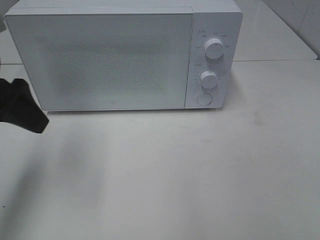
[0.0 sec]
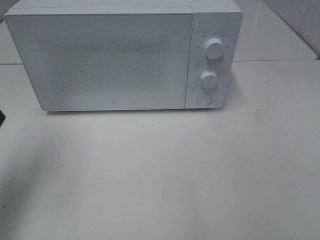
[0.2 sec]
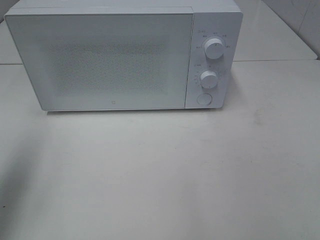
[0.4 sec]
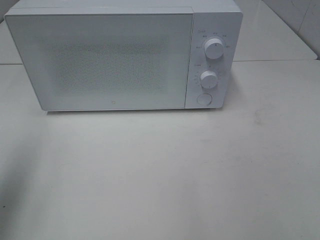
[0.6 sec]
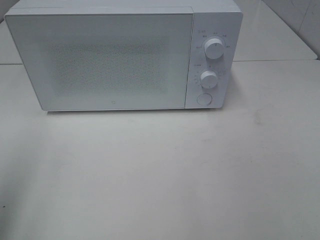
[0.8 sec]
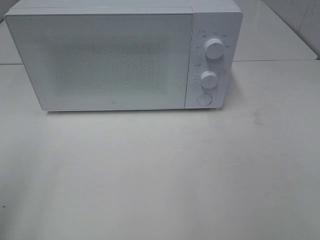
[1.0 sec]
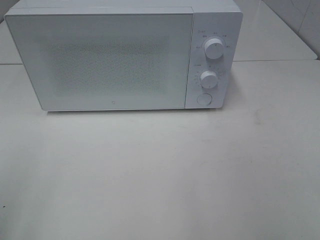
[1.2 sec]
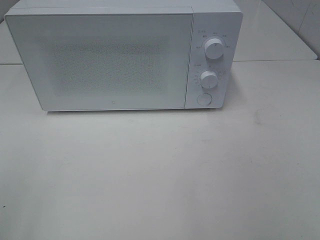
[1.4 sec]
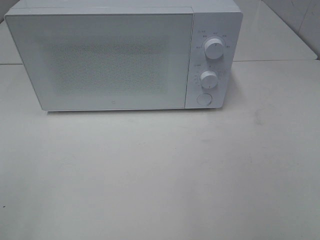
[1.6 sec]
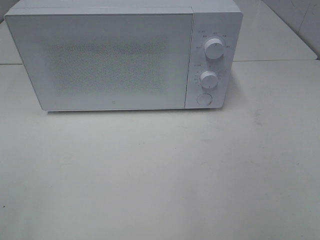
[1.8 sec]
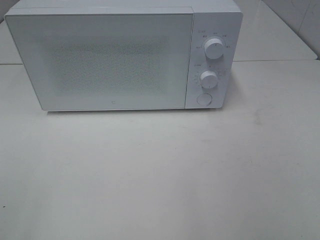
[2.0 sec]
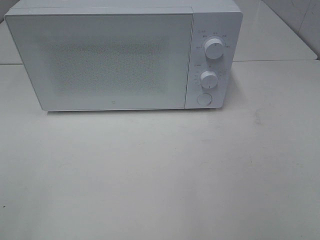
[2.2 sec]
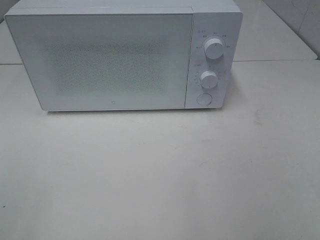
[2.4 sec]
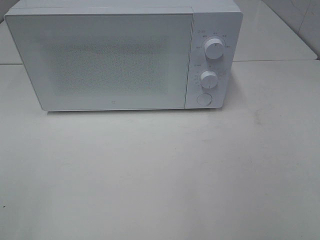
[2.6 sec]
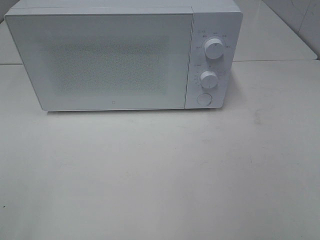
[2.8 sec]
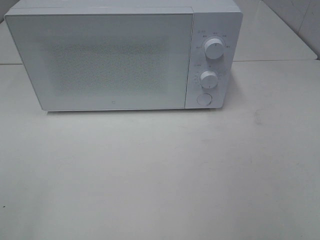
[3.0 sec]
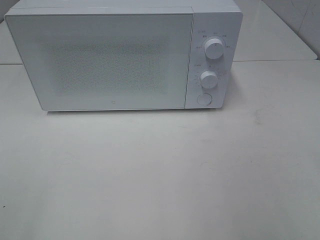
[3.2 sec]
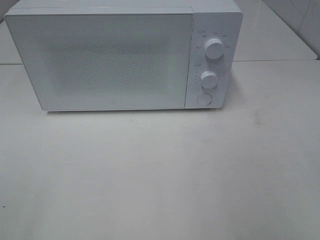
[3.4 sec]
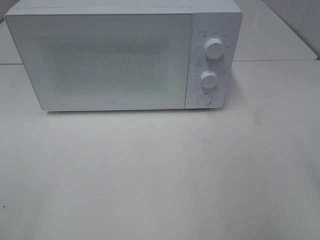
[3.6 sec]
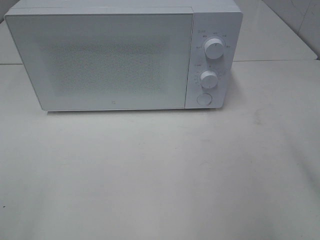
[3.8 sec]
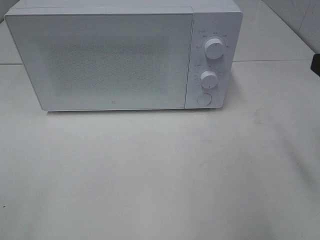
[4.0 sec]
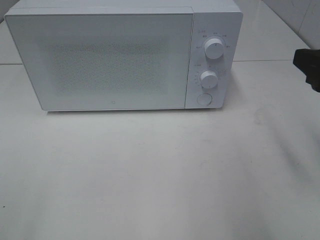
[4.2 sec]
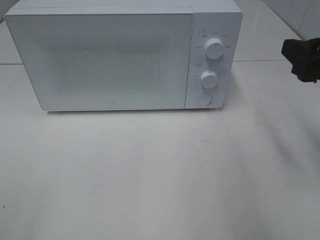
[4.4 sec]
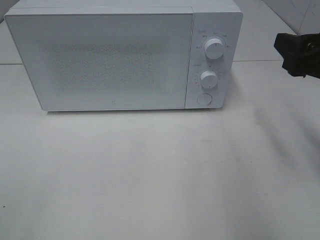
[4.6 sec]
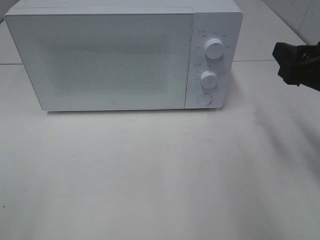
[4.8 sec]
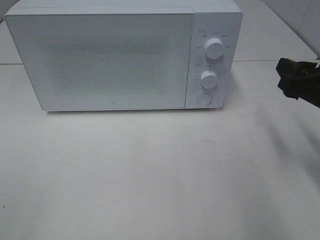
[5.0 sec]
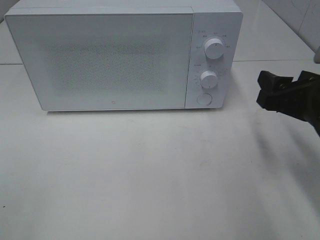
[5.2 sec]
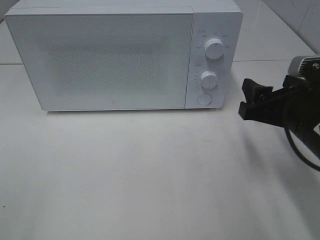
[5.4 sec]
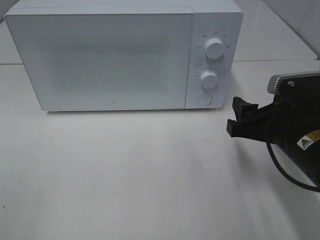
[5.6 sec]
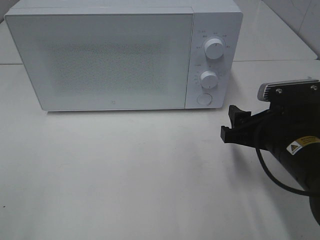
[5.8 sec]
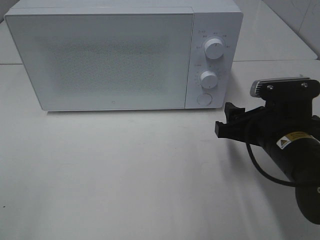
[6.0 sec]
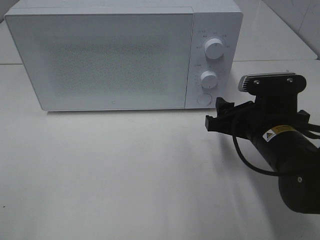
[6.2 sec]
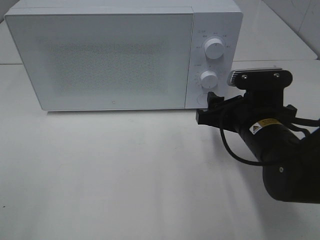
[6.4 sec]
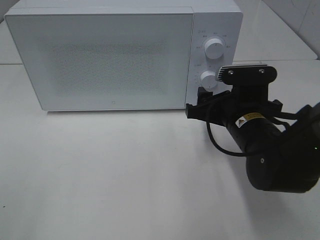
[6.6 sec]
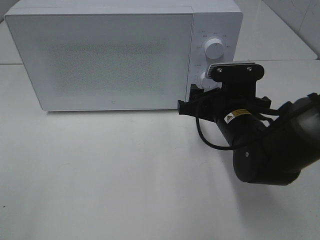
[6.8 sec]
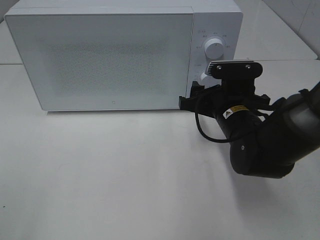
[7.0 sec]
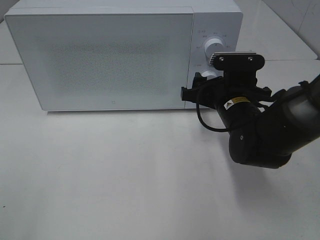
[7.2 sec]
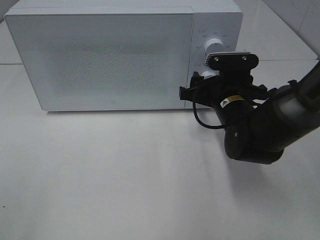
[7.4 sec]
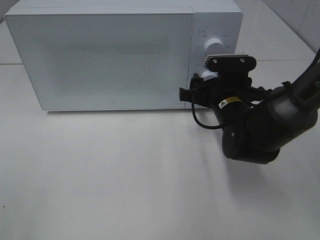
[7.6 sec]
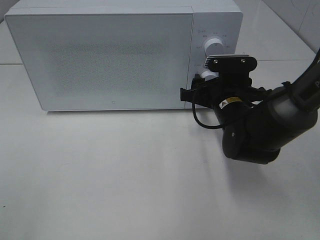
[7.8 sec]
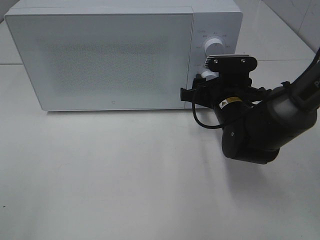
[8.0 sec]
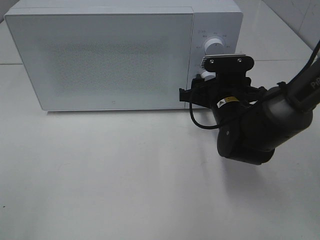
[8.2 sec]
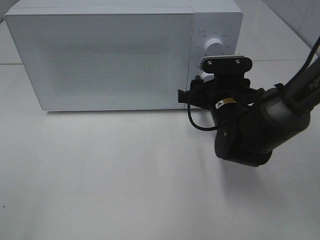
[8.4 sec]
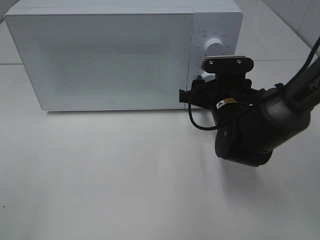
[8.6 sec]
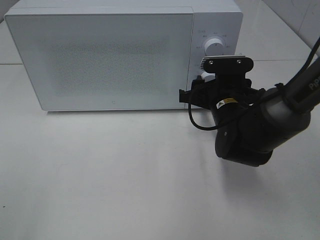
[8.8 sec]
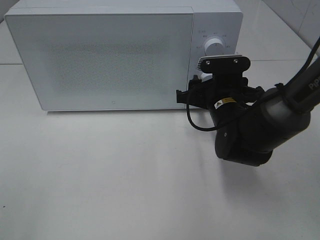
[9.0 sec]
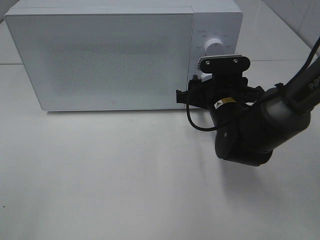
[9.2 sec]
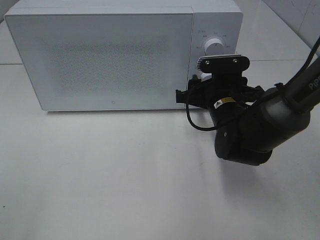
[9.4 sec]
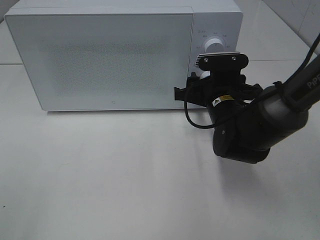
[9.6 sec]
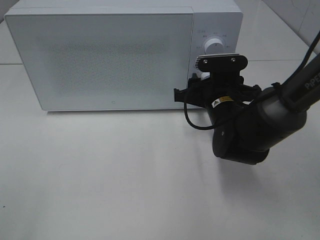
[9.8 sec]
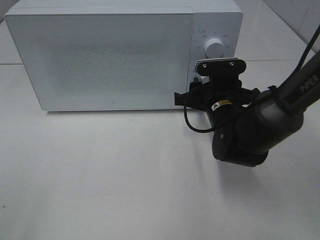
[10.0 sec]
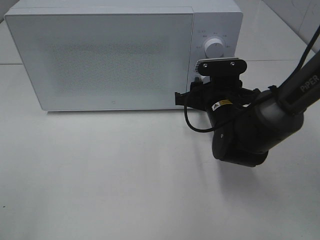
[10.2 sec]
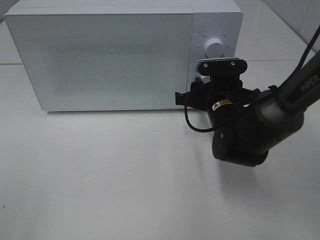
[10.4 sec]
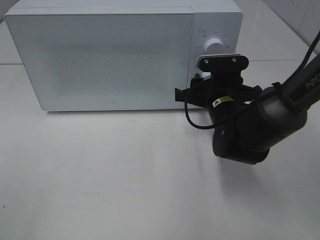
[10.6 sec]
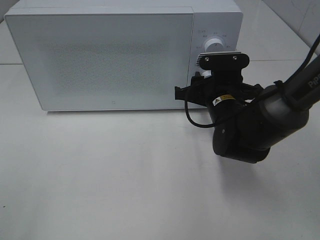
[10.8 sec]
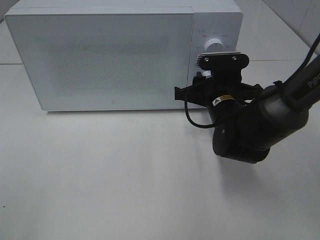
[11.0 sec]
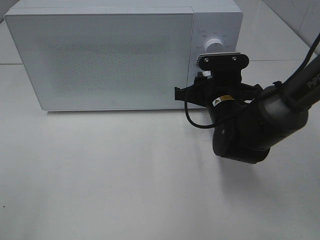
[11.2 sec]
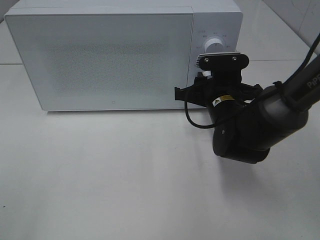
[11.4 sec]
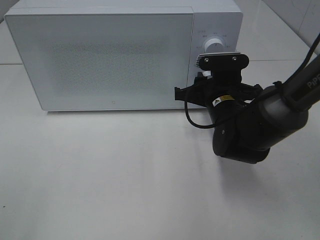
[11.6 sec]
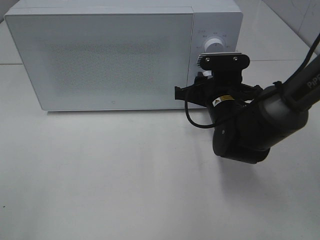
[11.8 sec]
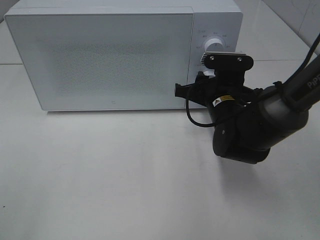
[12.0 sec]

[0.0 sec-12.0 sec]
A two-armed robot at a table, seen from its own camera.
Task of the whole recording: Heat the burger.
0.0 sec to 1.6 sec: The left gripper travels backward by roughly 25 cm.
3.0 sec to 4.4 sec: The right gripper heads forward, covering about 20 cm.
4.4 sec to 6.0 sec: The right gripper moves downward and to the left, some 15 cm.
6.0 sec to 7.6 sec: The right gripper goes about 10 cm forward.
7.6 sec to 10.4 sec: The two grippers keep their place.
10.4 sec to 12.0 sec: The grippers make only small movements.

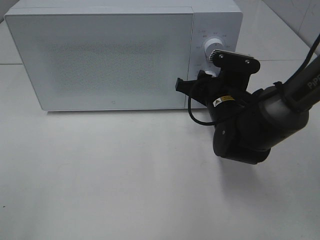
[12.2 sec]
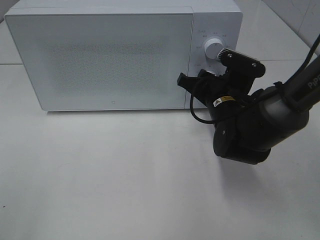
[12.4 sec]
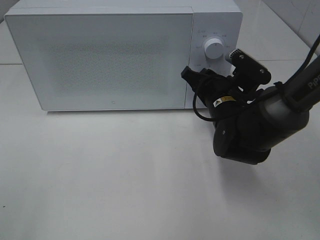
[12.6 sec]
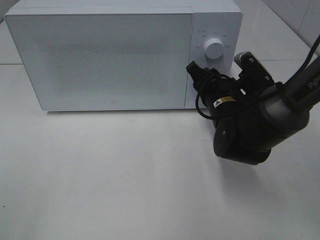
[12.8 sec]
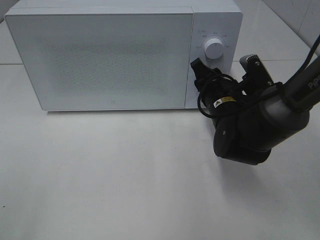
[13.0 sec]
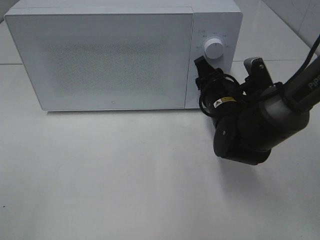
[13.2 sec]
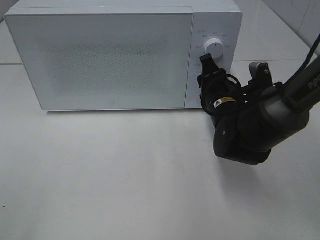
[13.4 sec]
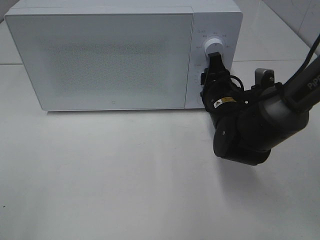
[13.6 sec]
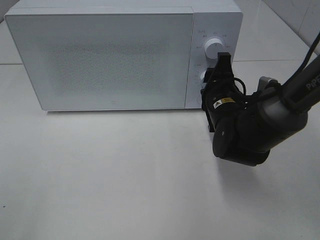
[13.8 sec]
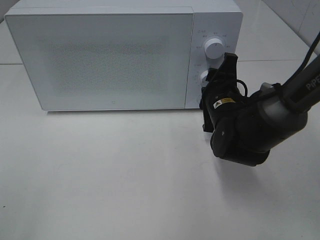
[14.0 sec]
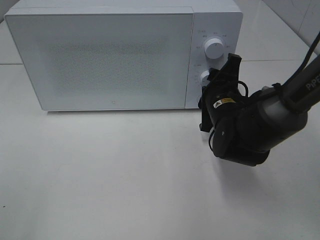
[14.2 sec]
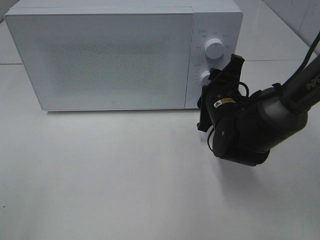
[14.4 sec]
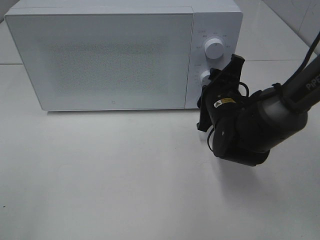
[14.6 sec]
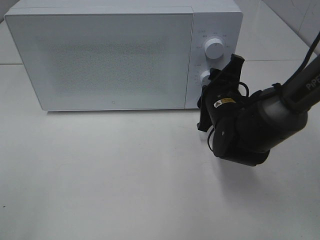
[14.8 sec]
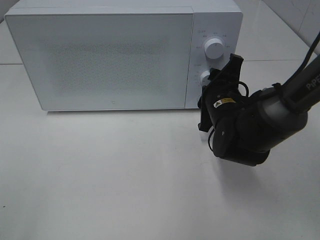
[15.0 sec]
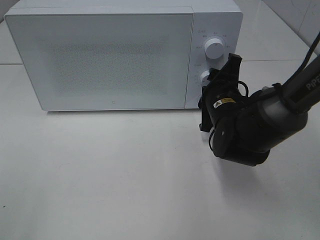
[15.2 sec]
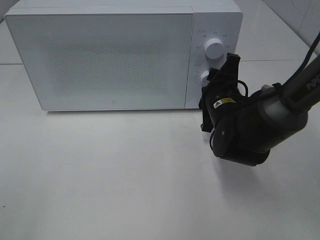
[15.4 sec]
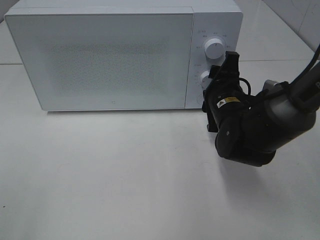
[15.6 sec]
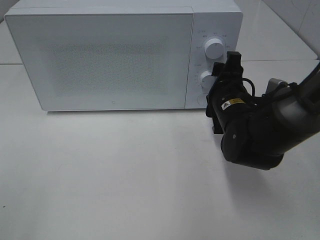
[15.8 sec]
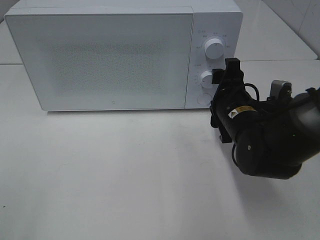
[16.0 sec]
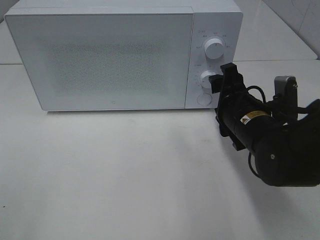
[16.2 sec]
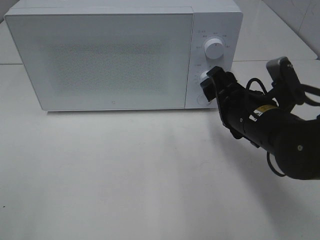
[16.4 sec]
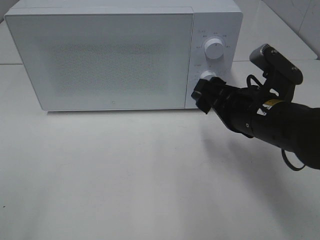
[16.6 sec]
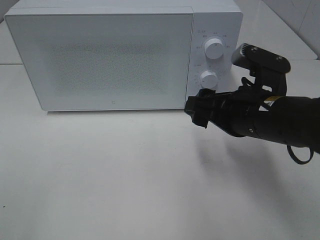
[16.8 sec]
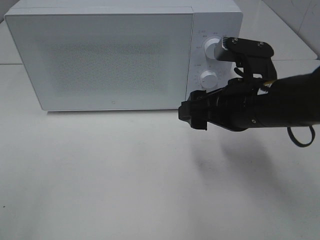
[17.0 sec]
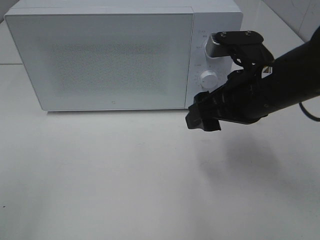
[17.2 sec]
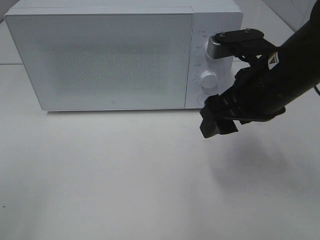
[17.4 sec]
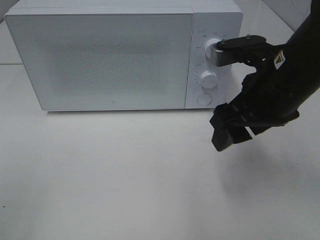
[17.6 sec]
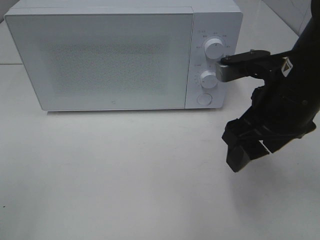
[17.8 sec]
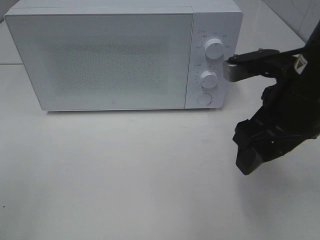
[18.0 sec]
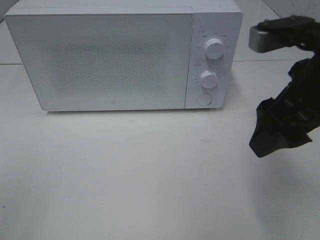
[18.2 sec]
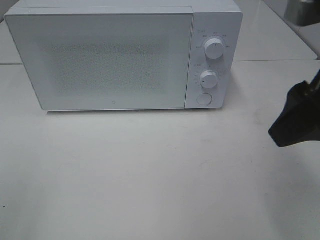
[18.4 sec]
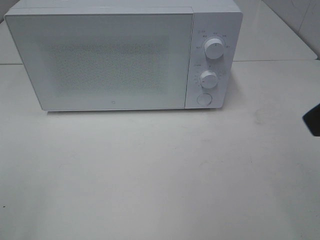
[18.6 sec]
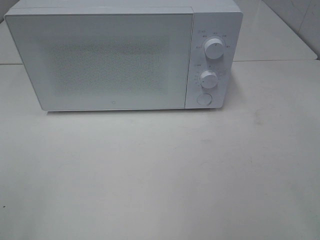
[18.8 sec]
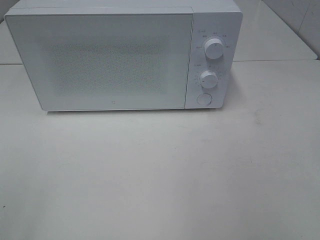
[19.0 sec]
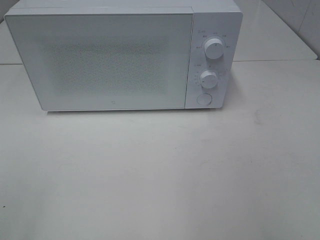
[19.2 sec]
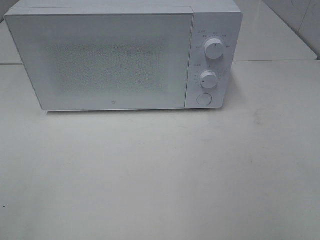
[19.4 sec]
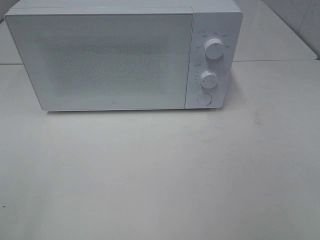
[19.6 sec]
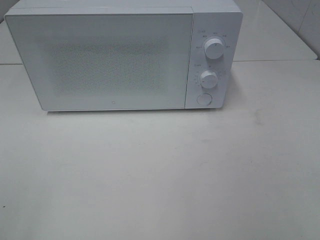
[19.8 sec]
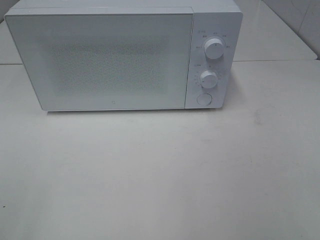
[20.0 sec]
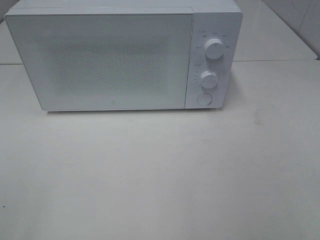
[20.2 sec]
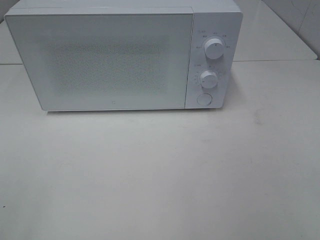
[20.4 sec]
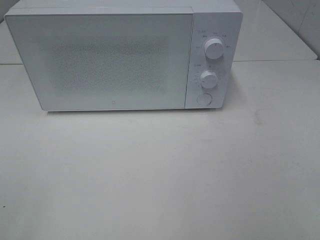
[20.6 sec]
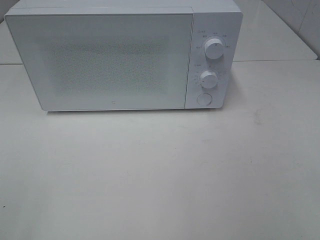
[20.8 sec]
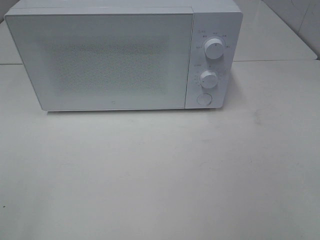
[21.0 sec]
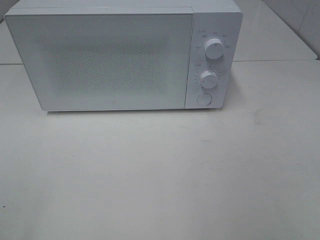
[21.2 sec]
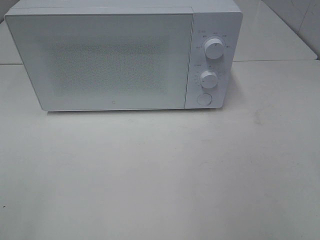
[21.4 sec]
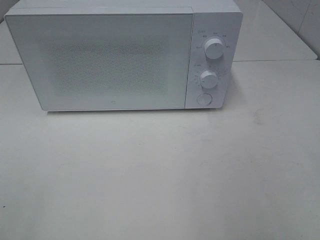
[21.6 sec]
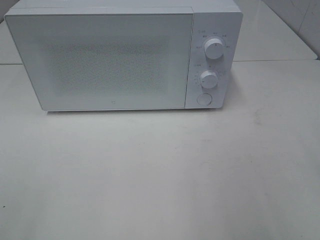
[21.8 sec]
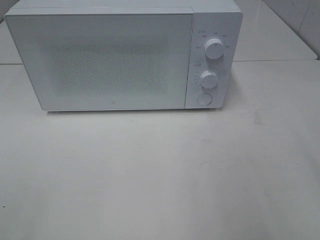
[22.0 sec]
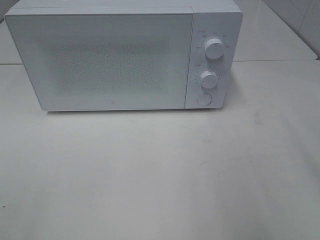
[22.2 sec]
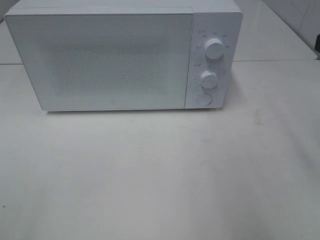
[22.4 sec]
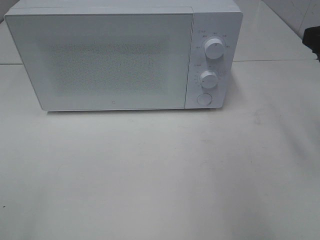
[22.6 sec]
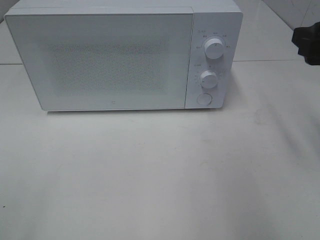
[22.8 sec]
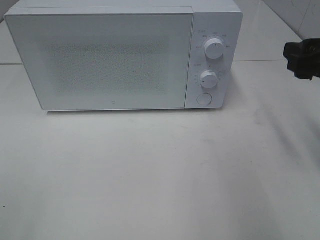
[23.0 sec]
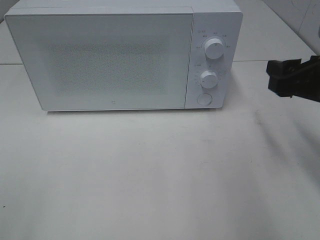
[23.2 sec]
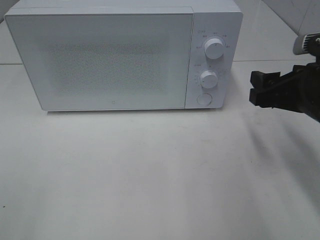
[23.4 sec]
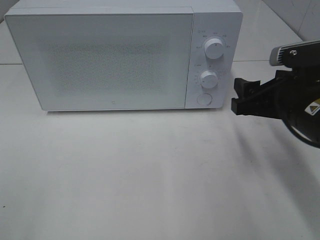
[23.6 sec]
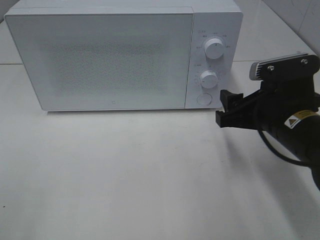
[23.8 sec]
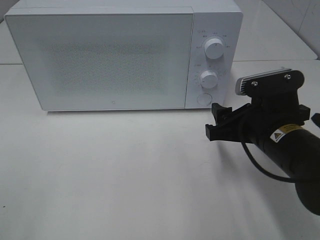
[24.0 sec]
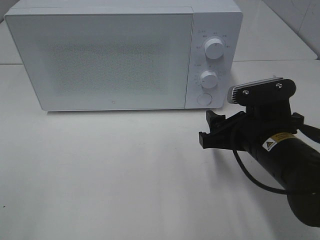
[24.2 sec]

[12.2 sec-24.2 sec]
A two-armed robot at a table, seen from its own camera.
Task of the whole recording: Heat the burger.
Step, 12.2 sec to 15.8 sec: Right hand: twist timer button.
13.8 sec to 15.2 sec: There are only small adjustments of the grippers.
15.2 sec to 16.6 sec: The right gripper travels backward and upward by approximately 10 cm, and opens up.
16.6 sec to 18.2 sec: The right gripper goes approximately 10 cm upward.
18.2 sec to 19.8 sec: The right gripper moves backward and to the right, approximately 25 cm.
22.6 sec to 24.2 sec: The right gripper travels downward and to the left by some 20 cm.
